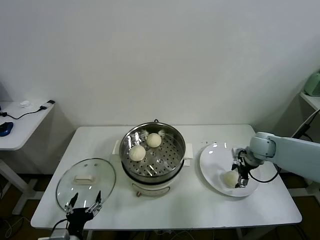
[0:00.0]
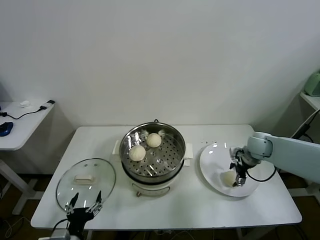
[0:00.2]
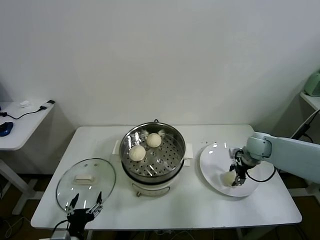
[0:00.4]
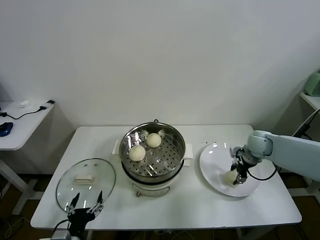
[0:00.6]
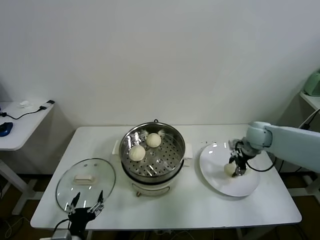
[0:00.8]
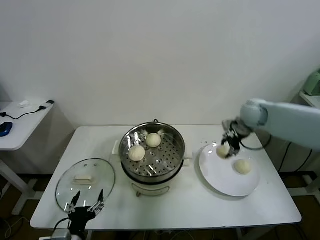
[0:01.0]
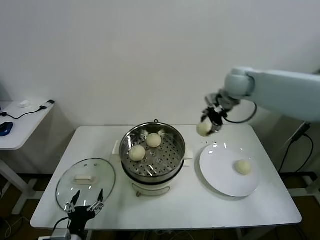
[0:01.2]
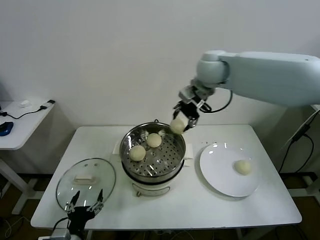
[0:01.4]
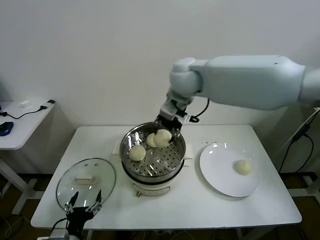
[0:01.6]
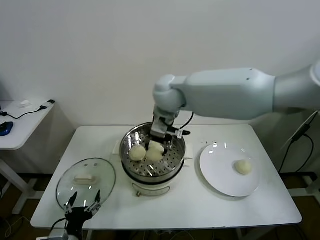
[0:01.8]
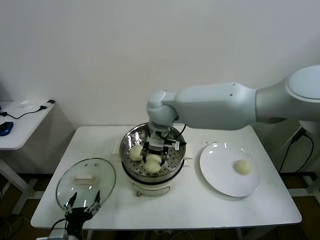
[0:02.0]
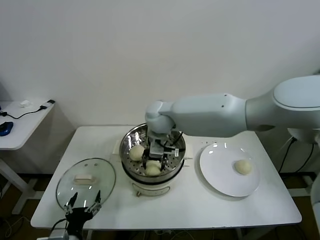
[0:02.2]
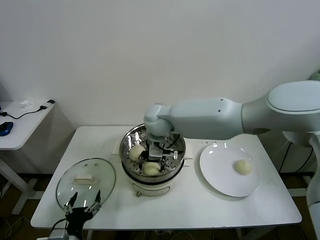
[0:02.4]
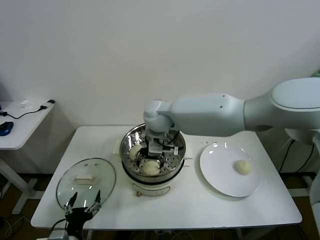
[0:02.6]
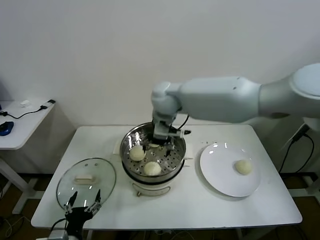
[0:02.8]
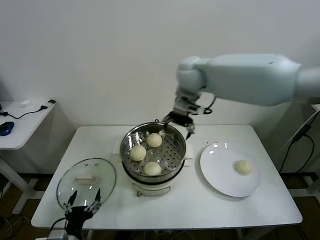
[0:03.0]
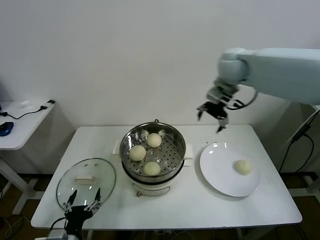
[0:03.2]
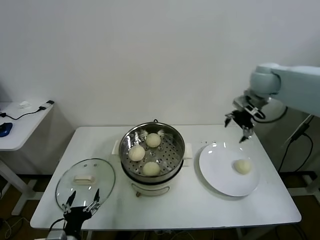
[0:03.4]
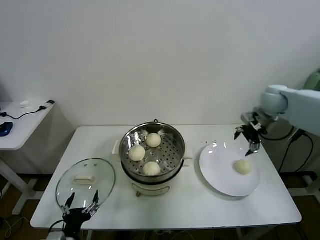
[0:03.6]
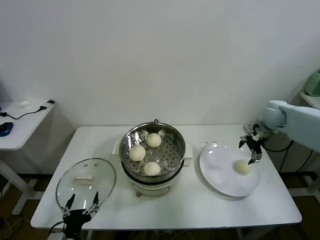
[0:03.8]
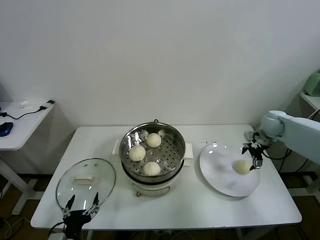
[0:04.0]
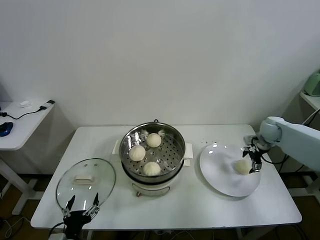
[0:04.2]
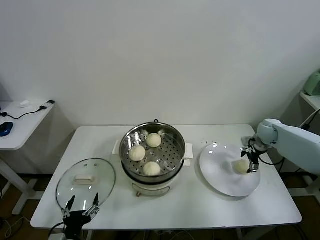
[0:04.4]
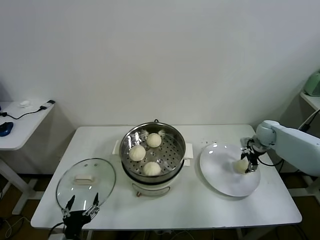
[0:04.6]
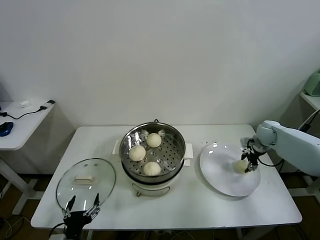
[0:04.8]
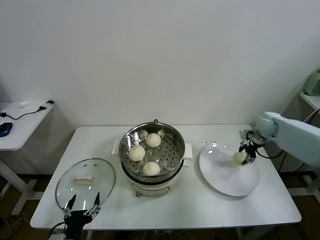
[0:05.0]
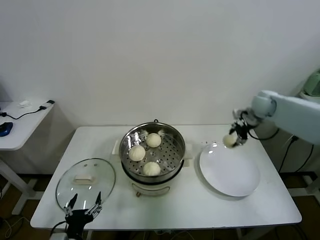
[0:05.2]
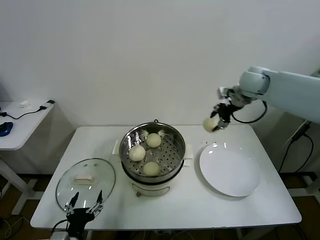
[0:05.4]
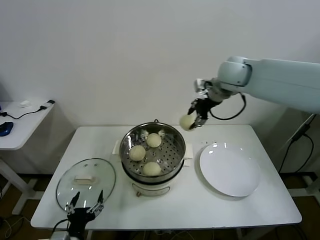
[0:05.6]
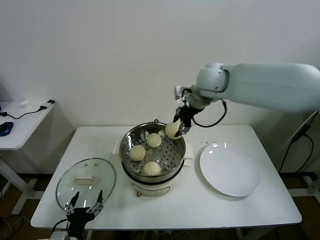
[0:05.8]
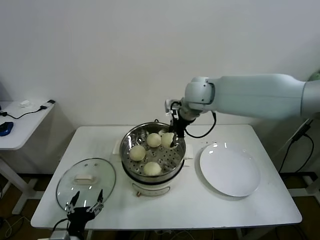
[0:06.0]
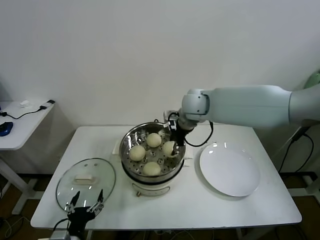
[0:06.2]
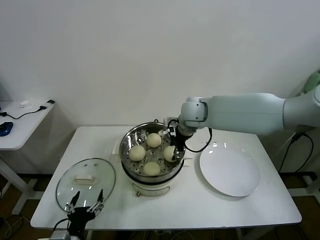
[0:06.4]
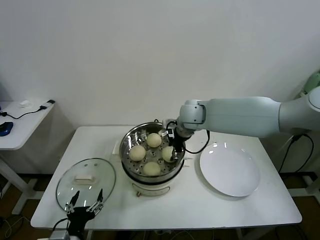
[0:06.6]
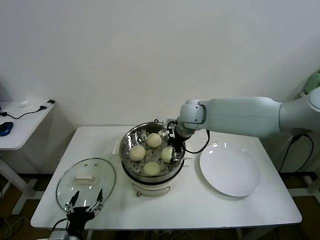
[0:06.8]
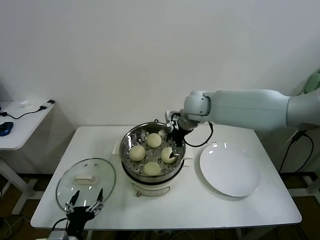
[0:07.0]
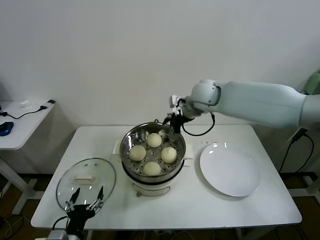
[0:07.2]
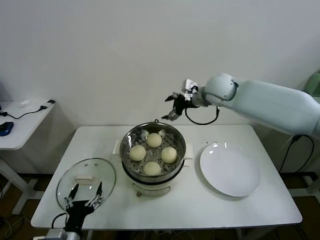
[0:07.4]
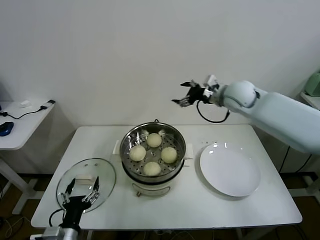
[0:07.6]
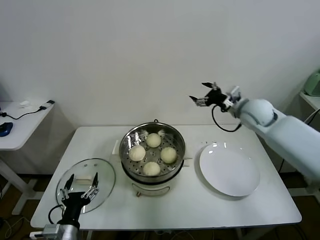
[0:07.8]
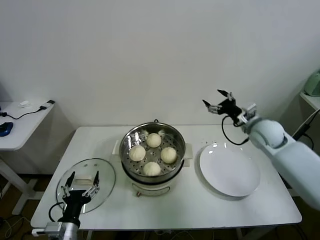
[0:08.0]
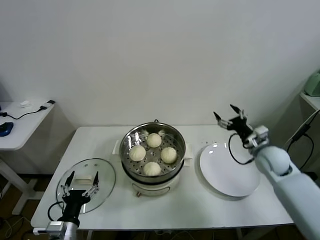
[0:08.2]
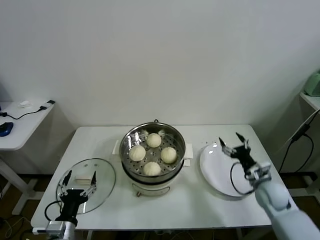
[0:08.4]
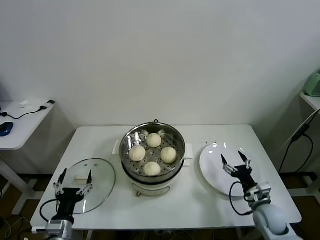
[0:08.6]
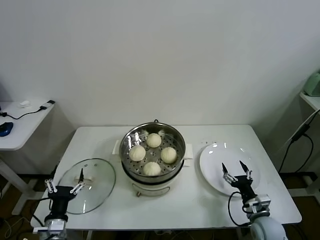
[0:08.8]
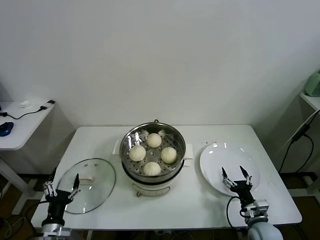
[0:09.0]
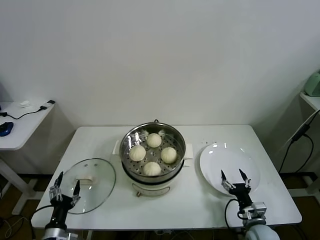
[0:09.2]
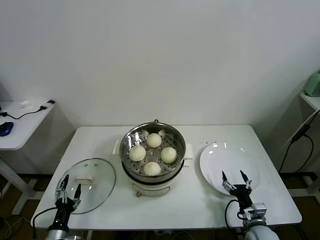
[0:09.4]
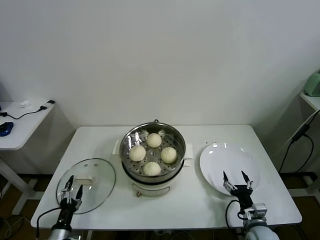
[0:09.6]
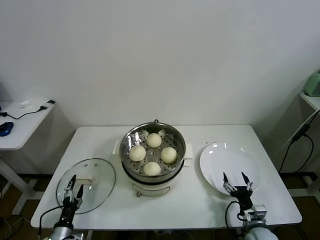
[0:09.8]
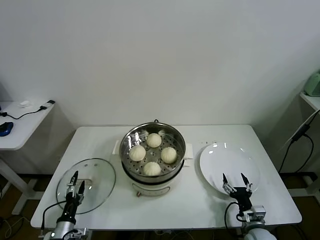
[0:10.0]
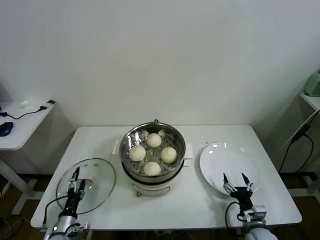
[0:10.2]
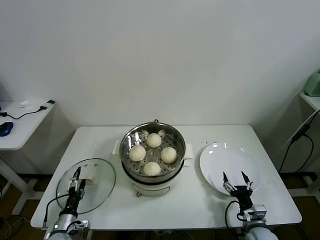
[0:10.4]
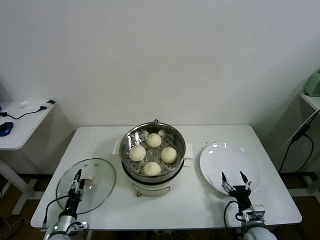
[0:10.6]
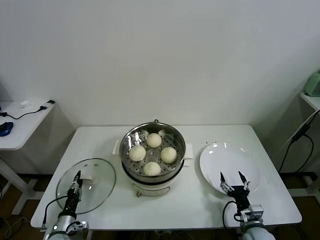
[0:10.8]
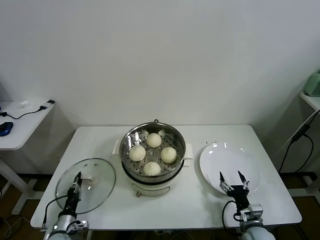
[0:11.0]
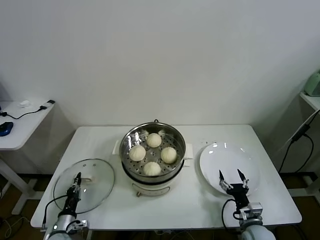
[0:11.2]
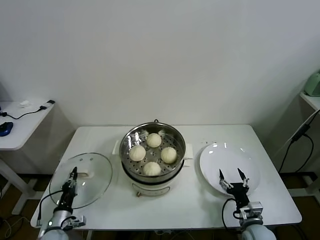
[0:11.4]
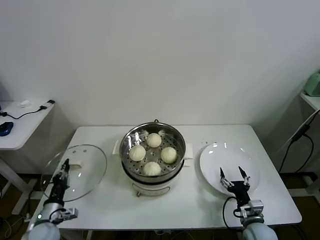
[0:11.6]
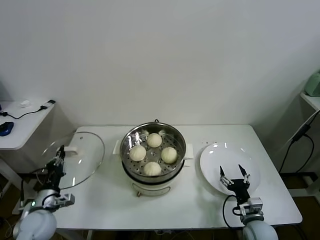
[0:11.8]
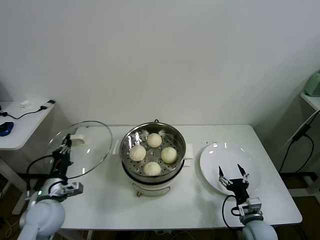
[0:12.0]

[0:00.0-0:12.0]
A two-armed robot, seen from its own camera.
Task of the whole recording: take steamed baozi put them in steamer.
Step, 0:00.4 to 0:02.6: Place the baozi on the steamer with right gripper.
Step, 0:02.8 to 0:04.4: Grasp the baozi in the plate with right gripper.
Step, 0:04.8 to 0:07.0: Place the baozi on the steamer with right gripper.
Step, 0:07.2 to 0:11.2: Grasp the pot lid with left gripper.
0:00.0 to 0:01.6: The right gripper goes approximately 40 cm to the left and upward, and closes its fingers.
0:01.6 to 0:03.0: The right gripper moves approximately 15 cm downward and comes back, and opens.
0:03.0 to 0:04.4: The right gripper moves to the right and downward, some 40 cm.
0:04.4 to 0:06.0: The right gripper is displaced to the left and upward by about 35 cm, and closes.
0:06.0 to 0:07.6: The right gripper goes some 10 cm to the right, and opens.
0:07.6 to 0:09.0: The right gripper is displaced downward and backward by roughly 50 cm; the left gripper heads to the left and downward, covering approximately 10 cm.
0:09.0 to 0:10.4: The left gripper shifts about 10 cm downward and forward.
0:10.4 to 0:12.0: The left gripper heads upward, covering some 20 cm, and closes up.

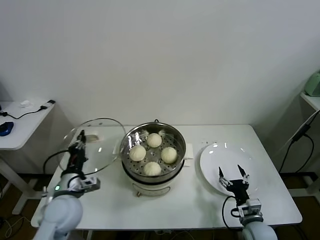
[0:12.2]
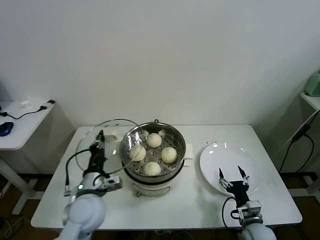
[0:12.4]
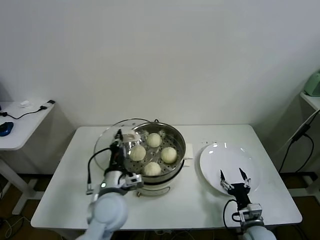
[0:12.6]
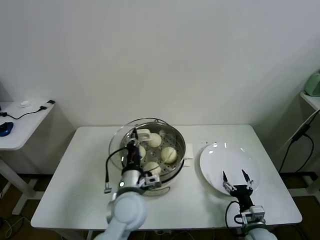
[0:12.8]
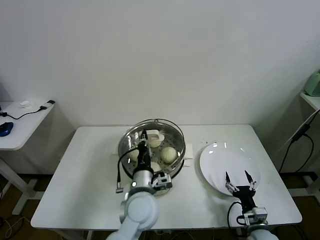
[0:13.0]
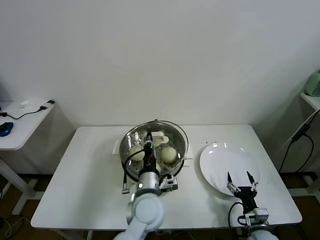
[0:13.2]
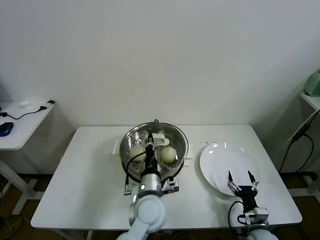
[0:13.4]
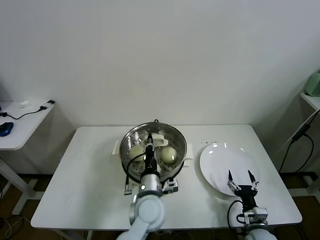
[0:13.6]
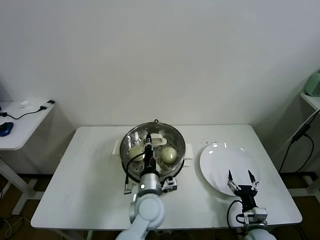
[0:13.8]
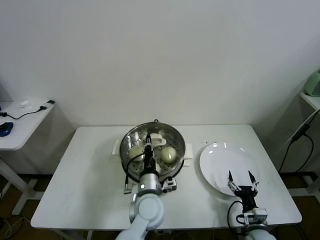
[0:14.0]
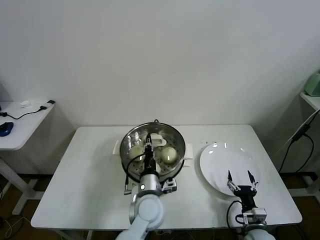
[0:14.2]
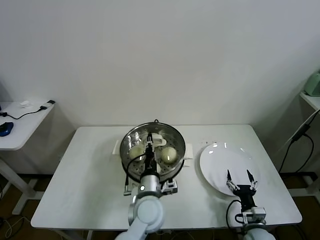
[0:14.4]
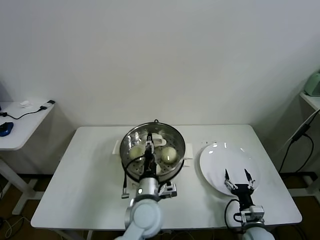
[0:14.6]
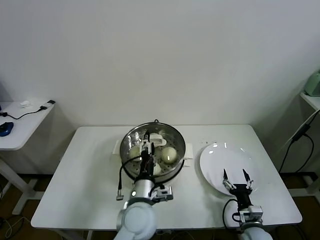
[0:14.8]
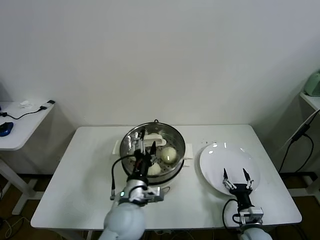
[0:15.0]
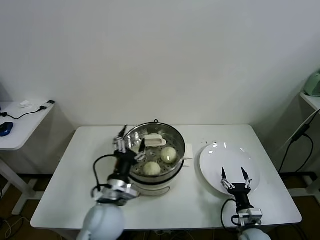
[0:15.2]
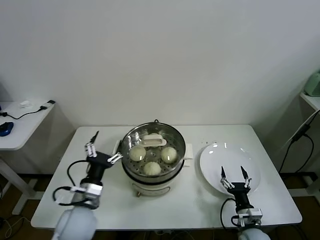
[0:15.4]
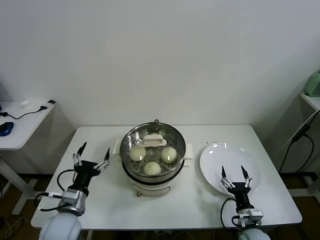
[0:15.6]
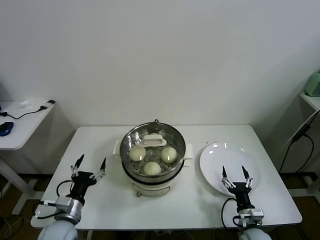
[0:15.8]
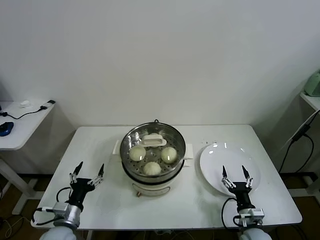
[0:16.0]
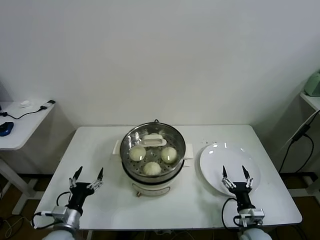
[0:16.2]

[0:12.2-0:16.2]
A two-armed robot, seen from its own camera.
Task of the whole recording: take steamed baozi put them in steamer.
Step, 0:12.2 to 0:14.2: Place the pot lid on the steamer with left gripper.
0:12.2 to 0:13.6: The left gripper moves to the right, approximately 25 cm.
0:13.6 to 0:14.8: The left gripper opens up.
0:14.8 to 0:16.2: The left gripper is displaced to the left by some 25 cm.
